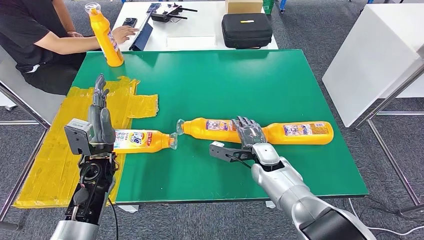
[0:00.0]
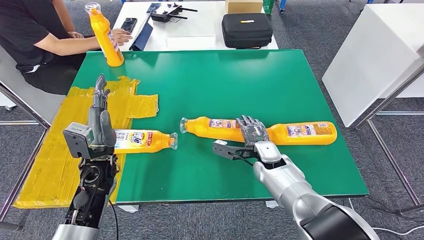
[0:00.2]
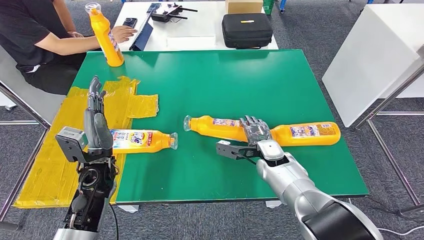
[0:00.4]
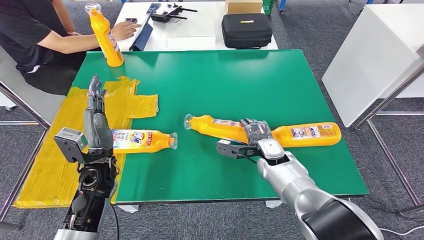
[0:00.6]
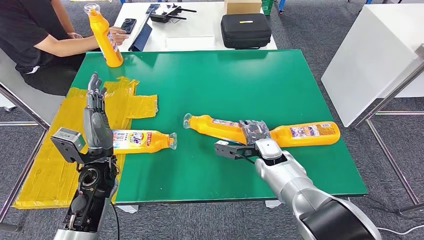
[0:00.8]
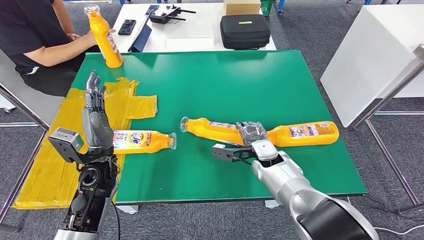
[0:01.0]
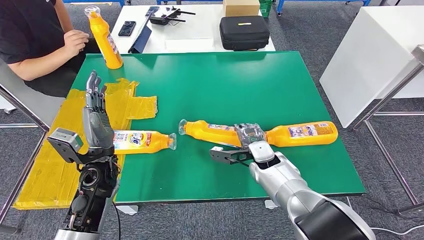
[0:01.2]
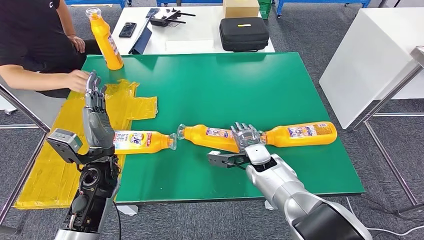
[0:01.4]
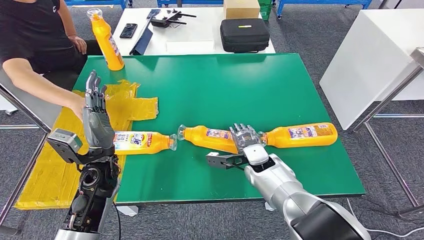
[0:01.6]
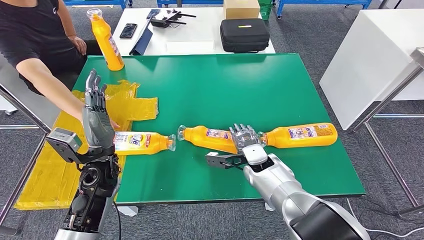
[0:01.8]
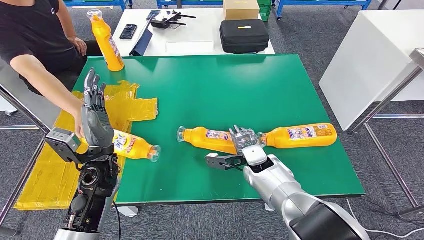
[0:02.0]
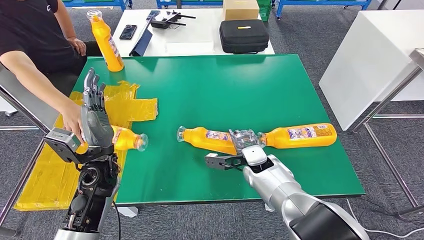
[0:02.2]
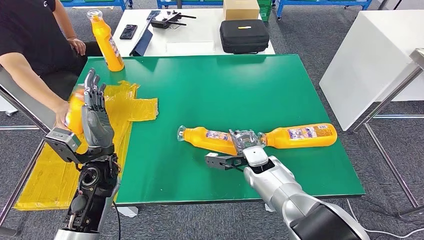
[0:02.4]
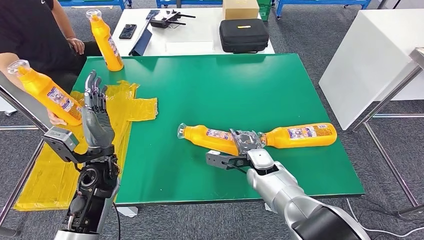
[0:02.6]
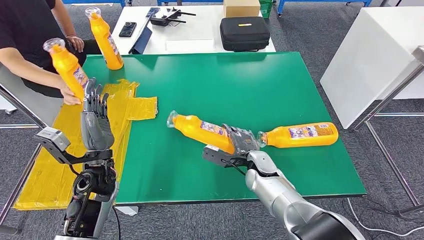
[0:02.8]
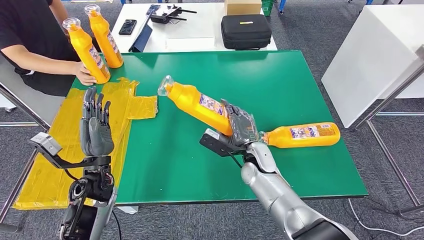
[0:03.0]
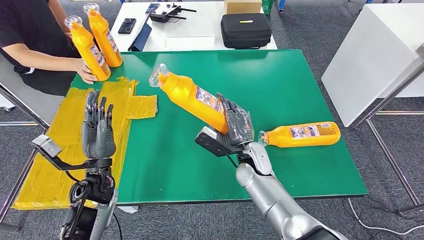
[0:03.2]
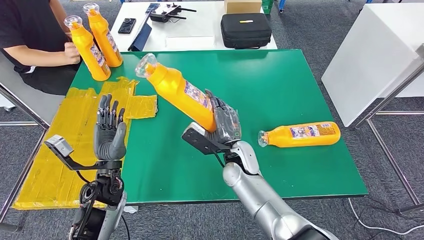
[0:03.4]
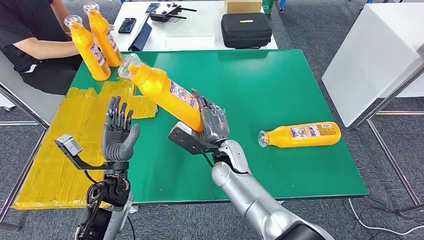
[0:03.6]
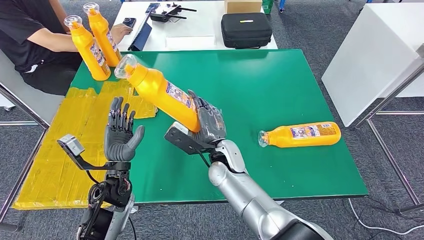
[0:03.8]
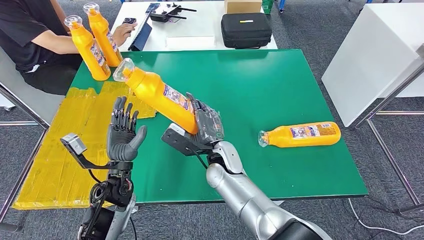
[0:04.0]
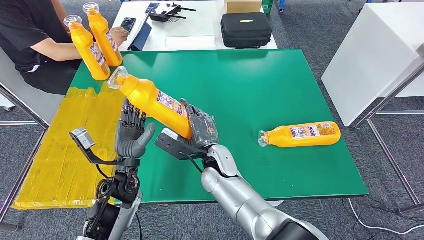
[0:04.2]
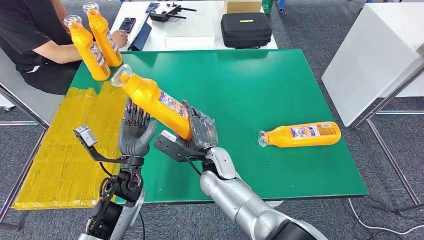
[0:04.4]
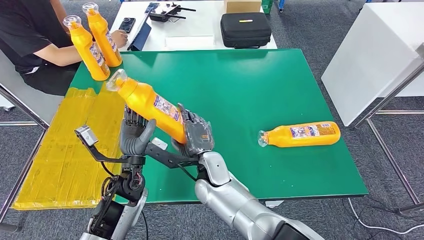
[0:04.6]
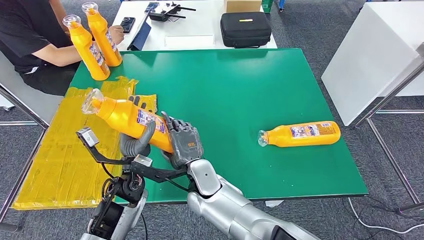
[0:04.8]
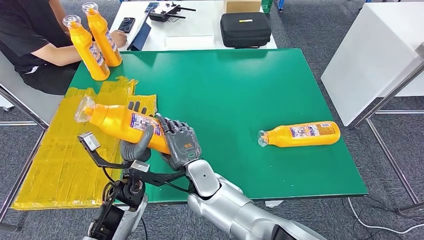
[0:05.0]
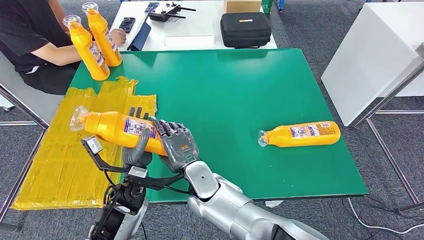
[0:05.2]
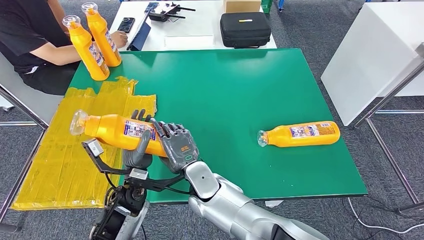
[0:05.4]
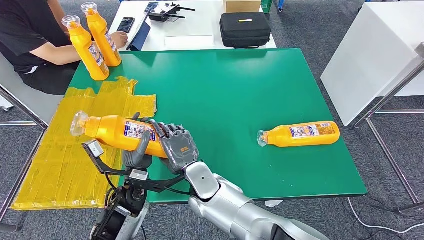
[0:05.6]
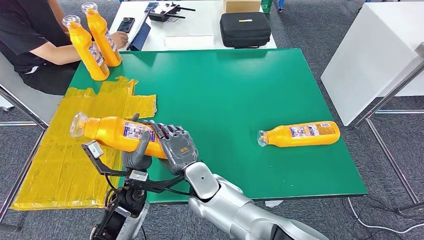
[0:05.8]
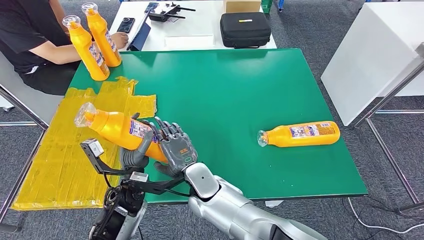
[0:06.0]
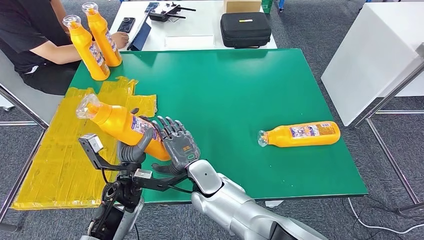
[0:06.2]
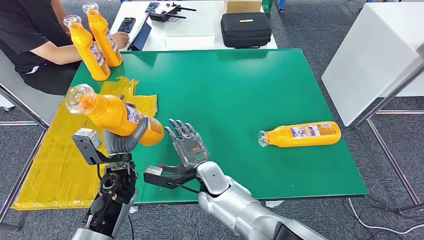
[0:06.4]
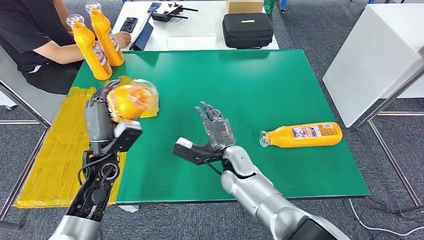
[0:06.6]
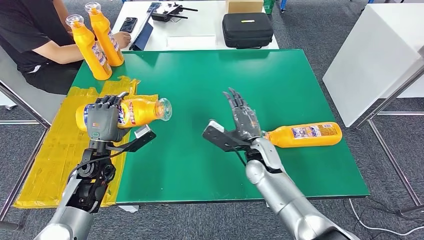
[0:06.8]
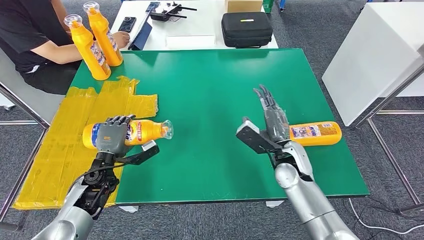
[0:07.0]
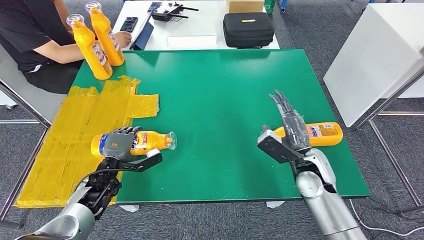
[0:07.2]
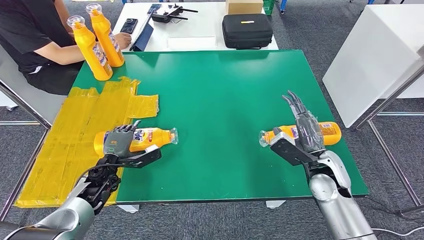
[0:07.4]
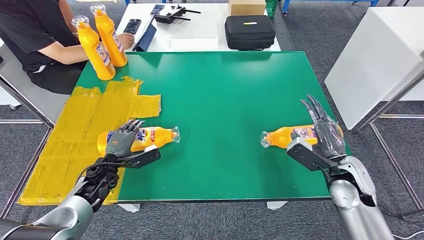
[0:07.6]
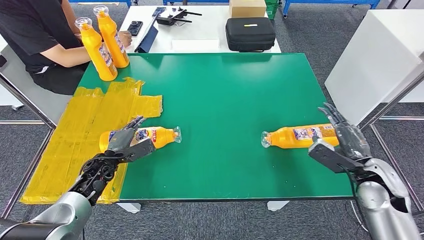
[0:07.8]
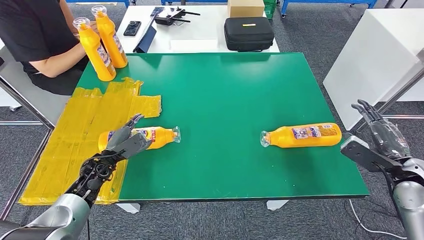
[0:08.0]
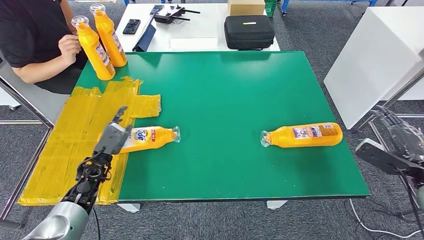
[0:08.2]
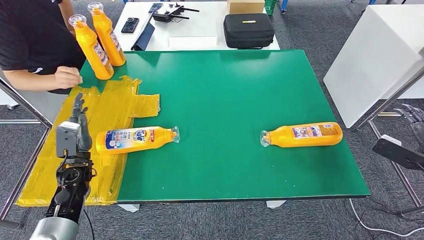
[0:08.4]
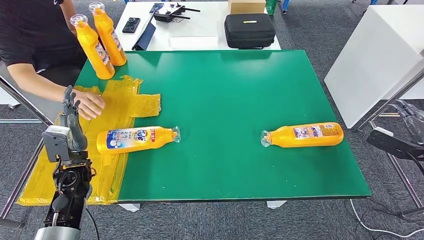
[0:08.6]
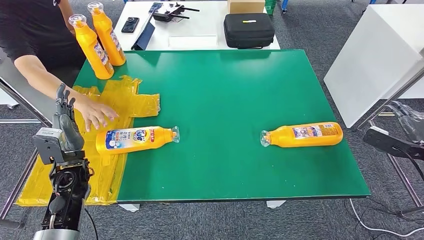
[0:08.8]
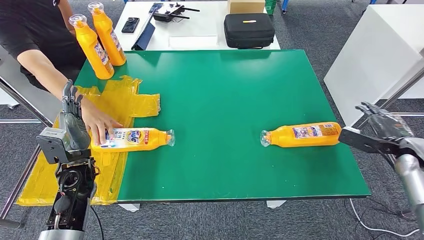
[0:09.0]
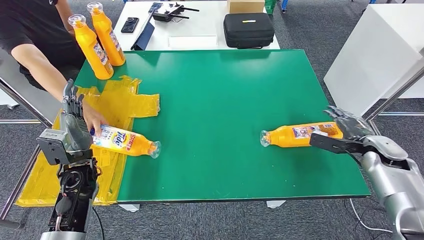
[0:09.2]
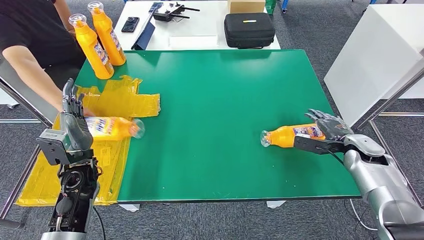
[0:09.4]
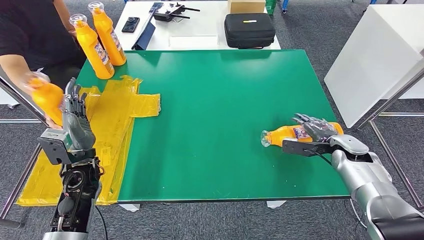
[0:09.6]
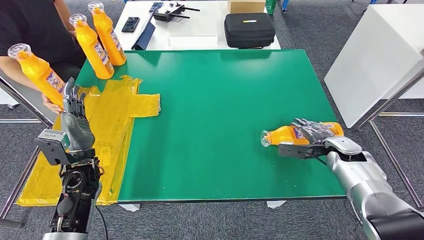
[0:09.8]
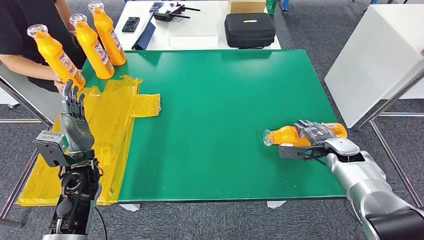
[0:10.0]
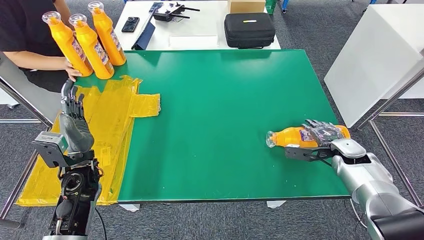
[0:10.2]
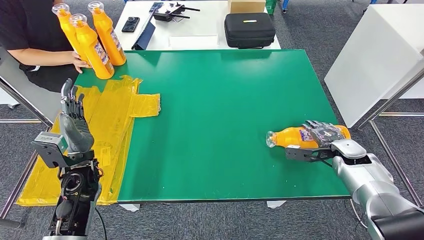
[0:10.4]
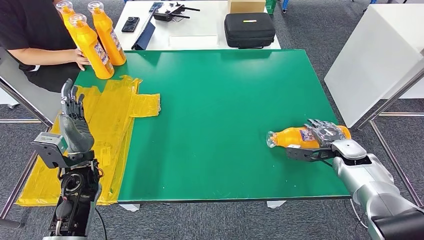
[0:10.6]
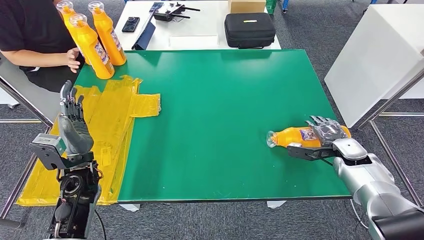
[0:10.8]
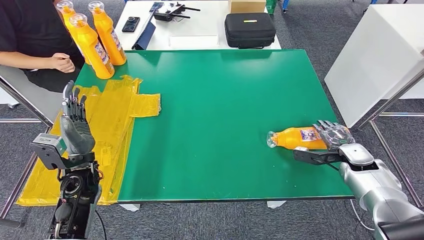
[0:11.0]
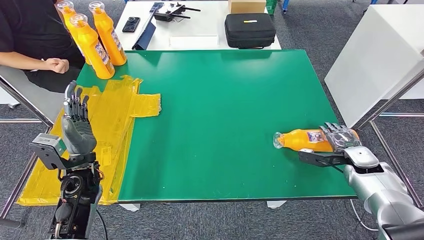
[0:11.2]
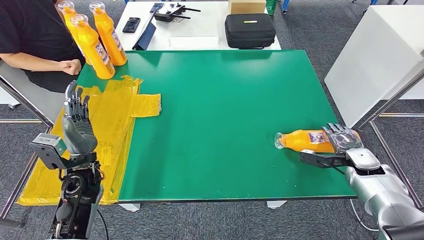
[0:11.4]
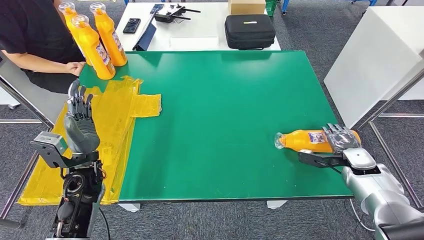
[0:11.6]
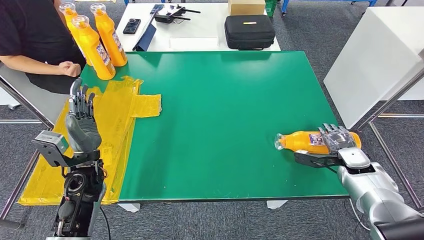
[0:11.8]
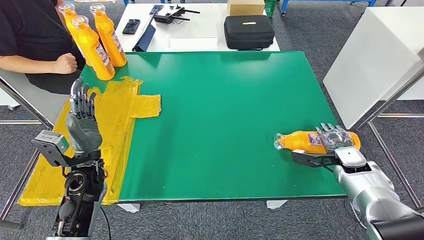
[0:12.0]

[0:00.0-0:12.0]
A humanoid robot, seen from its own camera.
Step, 0:01.2 to 0:04.0: Pick up the fast-moving consumer goods bottle from the table.
Step, 0:05.0 to 0:07.8: Flip the fast-moving consumer goods bottle to the front side.
0:04.4 to 0:06.0: The right hand travels backward by about 5 cm.
0:09.0 to 0:10.4: The right hand shifts about 15 cm to the left and downward.
0:10.4 to 0:12.0: There are only small adjustments of the hands.

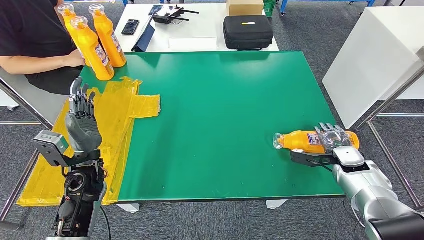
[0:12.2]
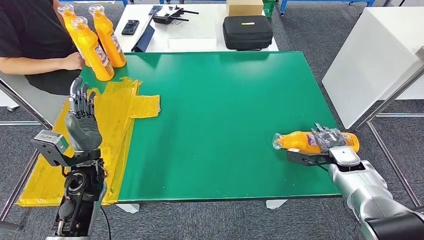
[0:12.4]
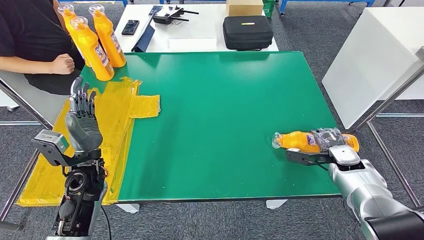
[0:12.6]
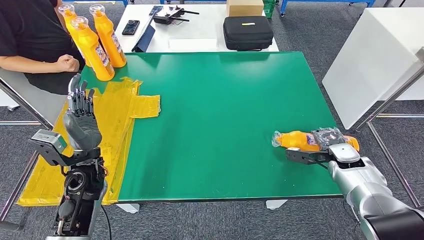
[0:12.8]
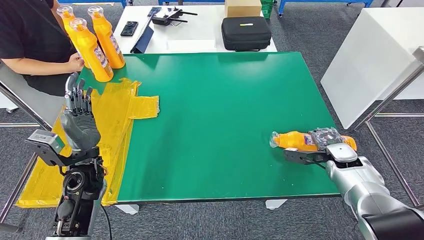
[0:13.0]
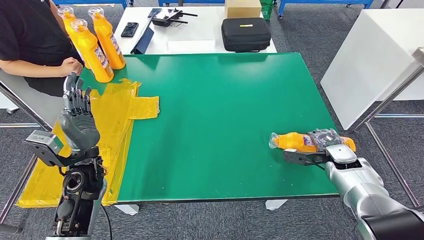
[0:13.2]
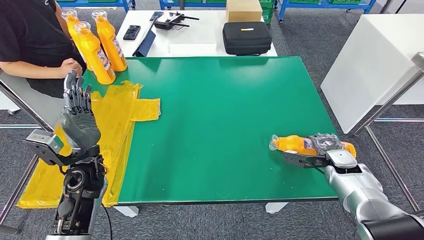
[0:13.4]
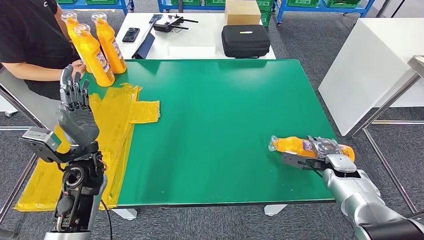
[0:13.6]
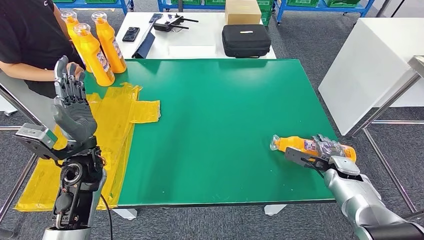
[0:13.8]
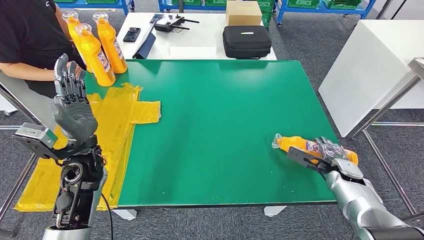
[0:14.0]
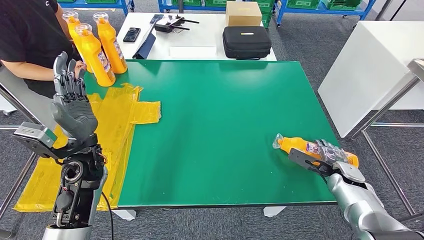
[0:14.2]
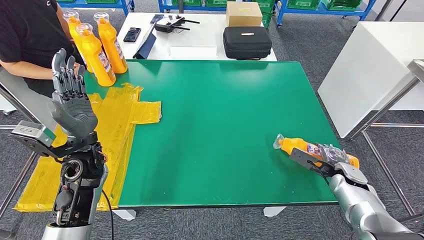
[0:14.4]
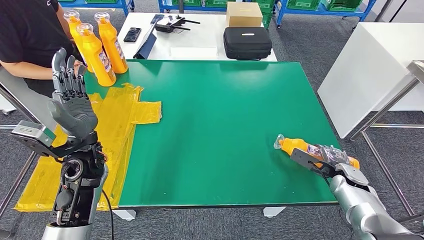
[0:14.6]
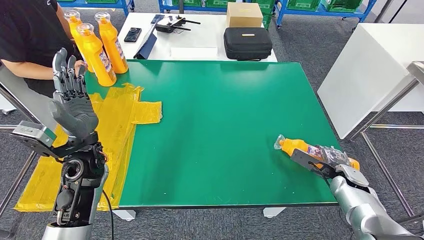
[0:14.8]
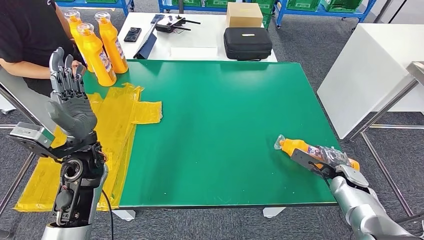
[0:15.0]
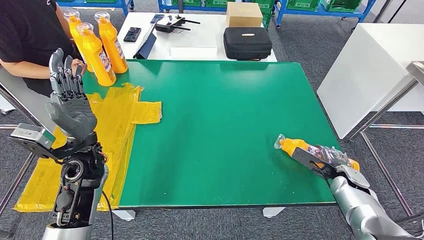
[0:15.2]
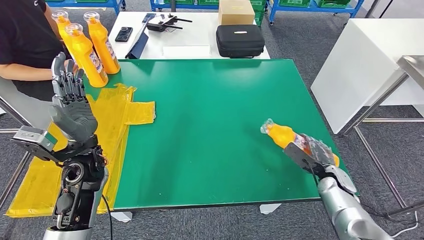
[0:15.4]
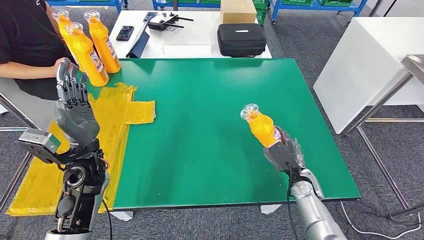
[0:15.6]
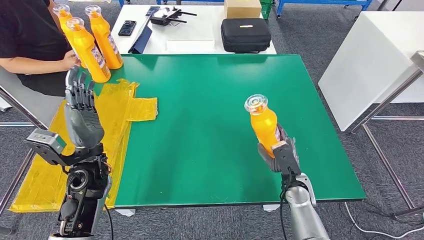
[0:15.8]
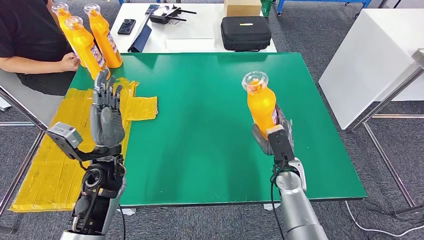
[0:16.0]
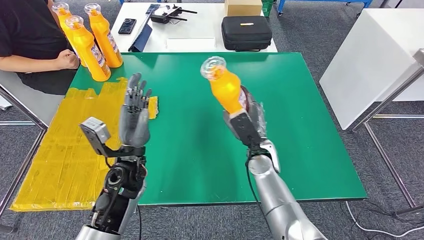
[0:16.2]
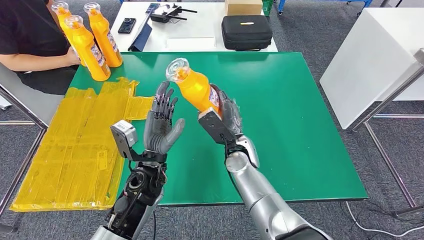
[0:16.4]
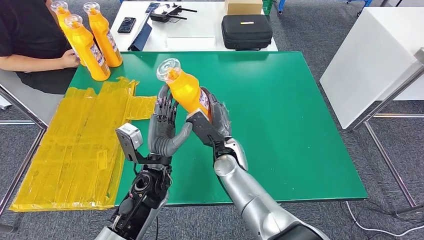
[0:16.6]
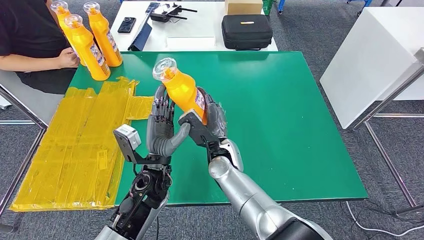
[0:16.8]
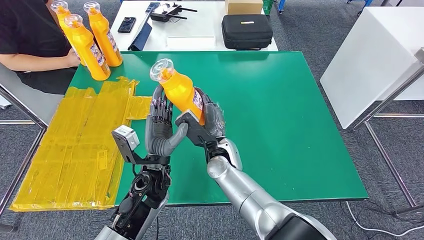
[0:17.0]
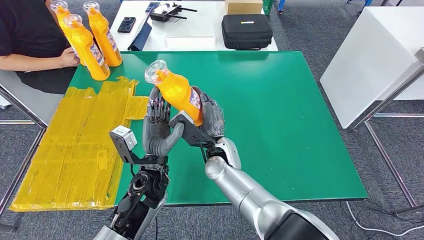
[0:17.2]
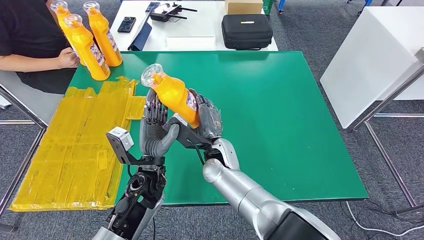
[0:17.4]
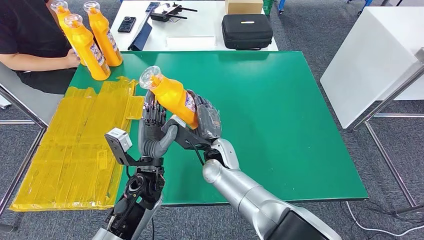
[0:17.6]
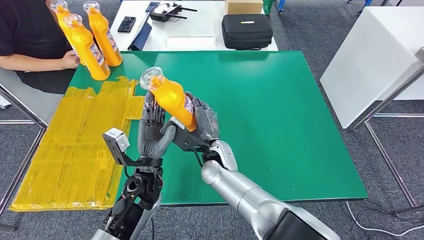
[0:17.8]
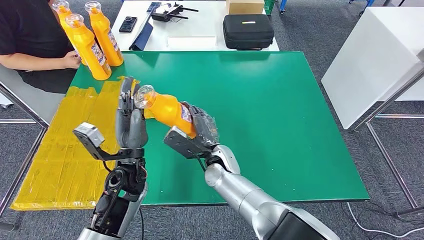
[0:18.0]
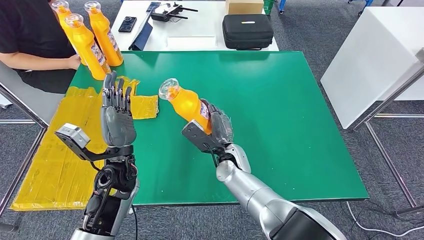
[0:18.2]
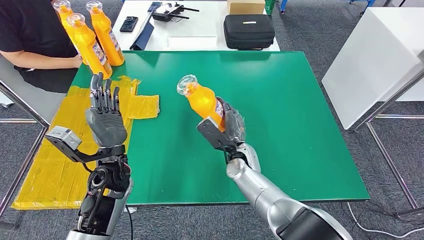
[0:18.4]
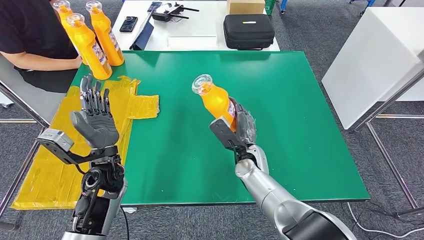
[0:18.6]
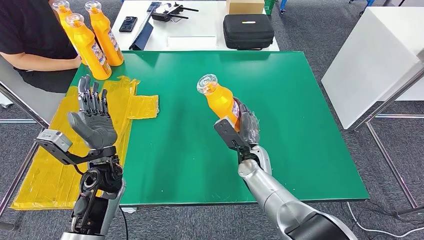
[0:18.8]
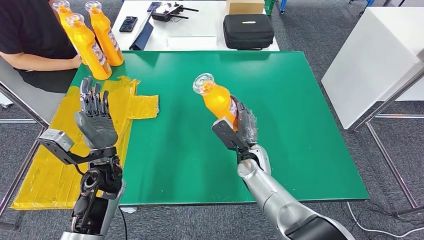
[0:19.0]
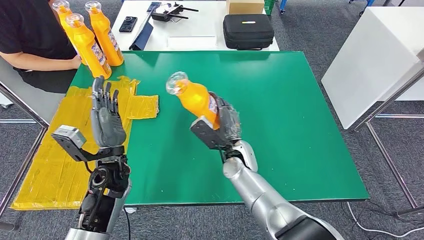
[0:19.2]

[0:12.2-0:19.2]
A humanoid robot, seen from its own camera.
Step, 0:14.0 to 0:17.6: Pick up the fast-moving consumer goods bottle from the table.
0:16.4 to 0:17.8: The right hand travels to the left by some 5 cm.
